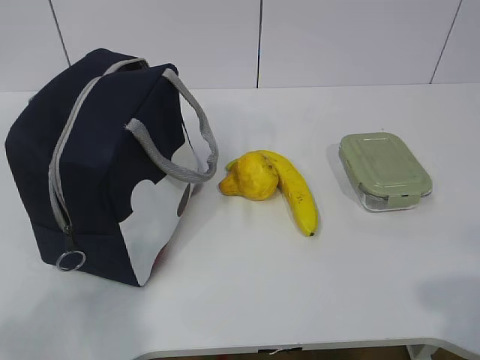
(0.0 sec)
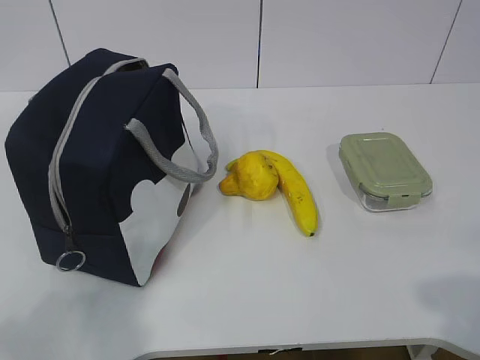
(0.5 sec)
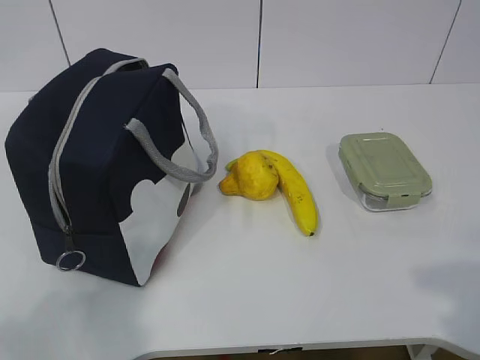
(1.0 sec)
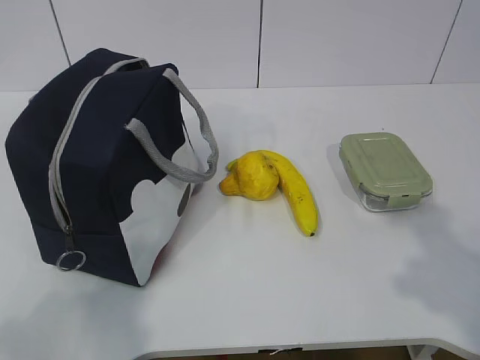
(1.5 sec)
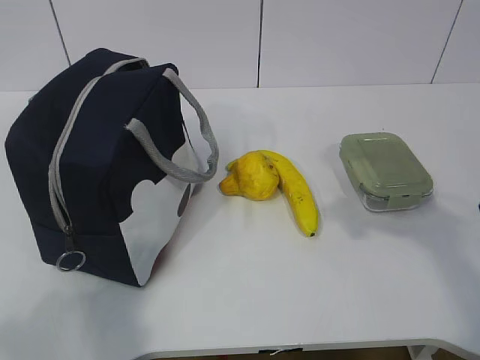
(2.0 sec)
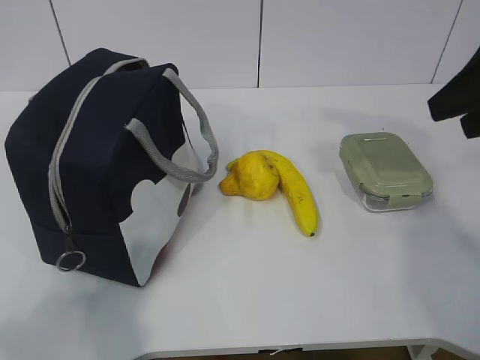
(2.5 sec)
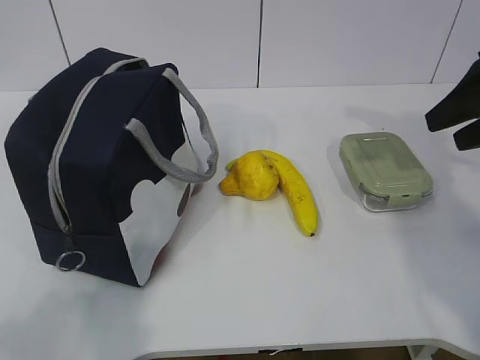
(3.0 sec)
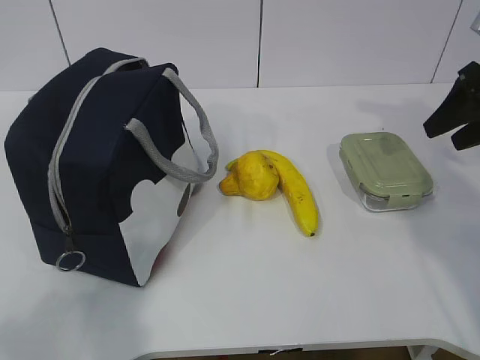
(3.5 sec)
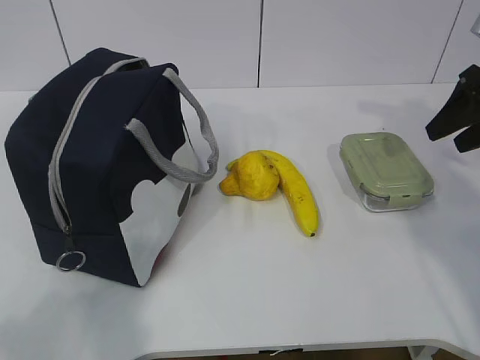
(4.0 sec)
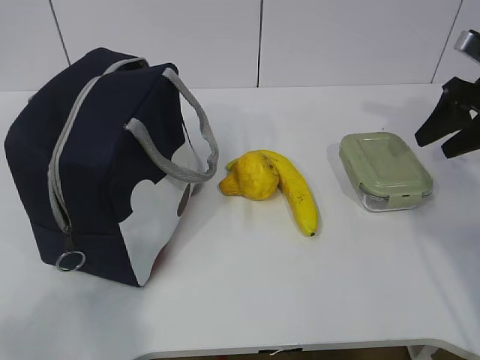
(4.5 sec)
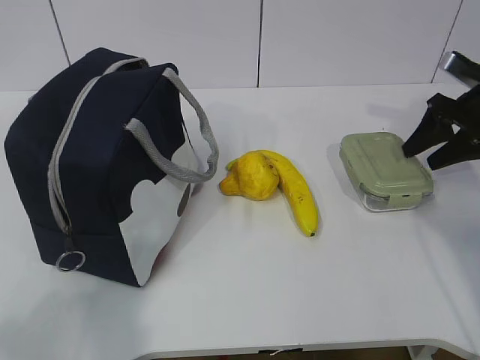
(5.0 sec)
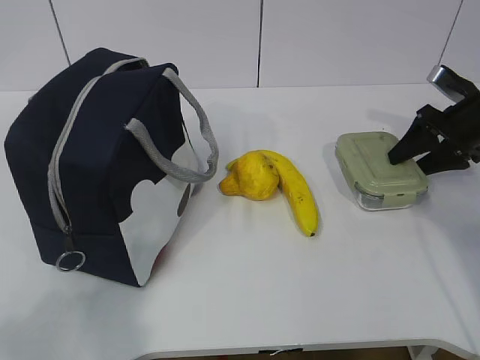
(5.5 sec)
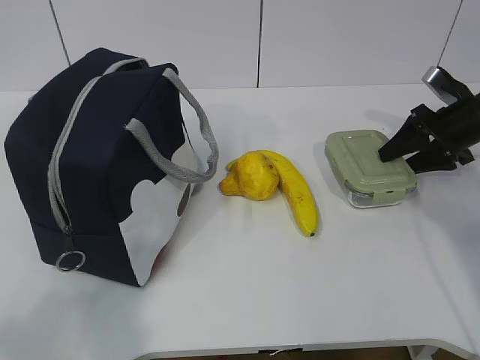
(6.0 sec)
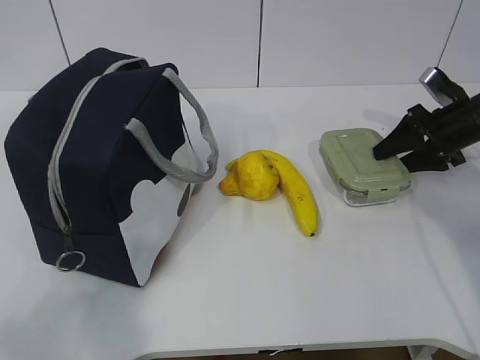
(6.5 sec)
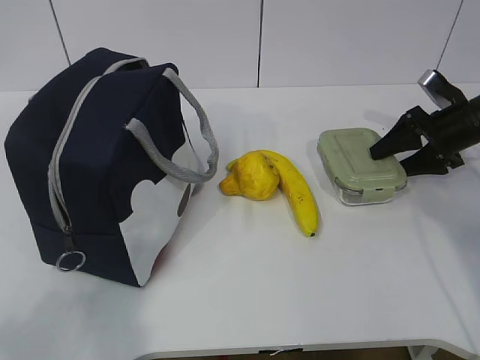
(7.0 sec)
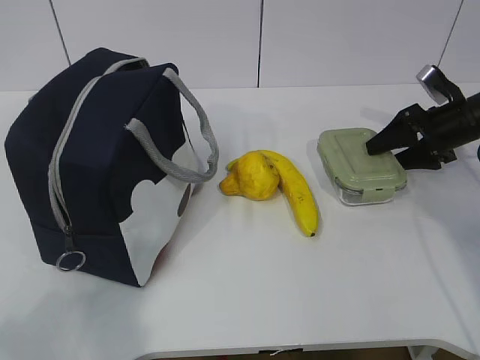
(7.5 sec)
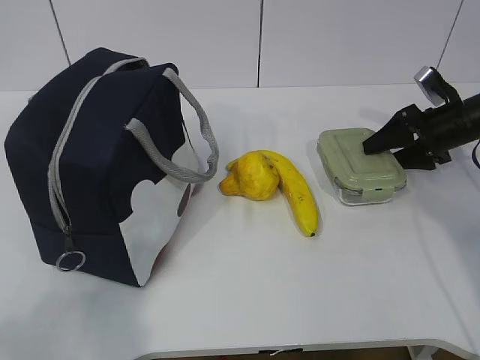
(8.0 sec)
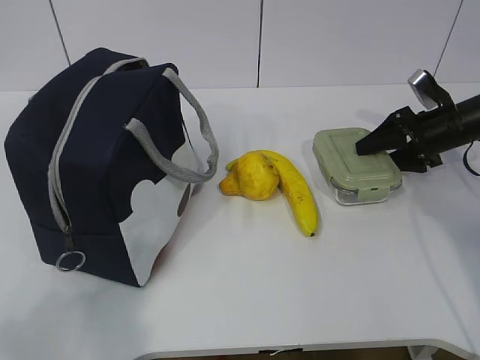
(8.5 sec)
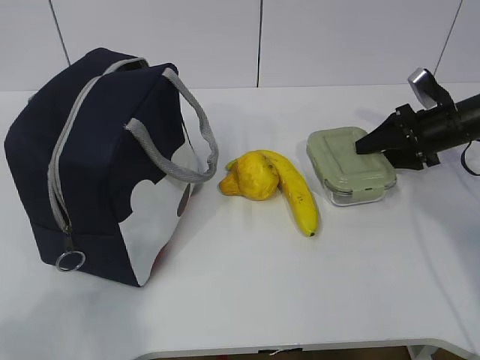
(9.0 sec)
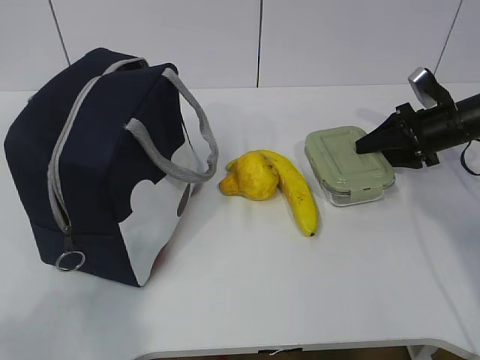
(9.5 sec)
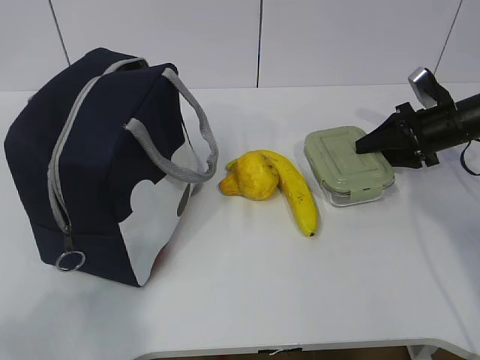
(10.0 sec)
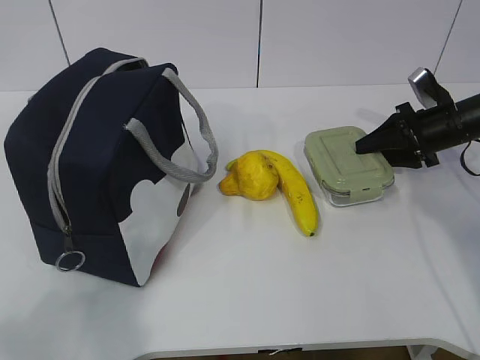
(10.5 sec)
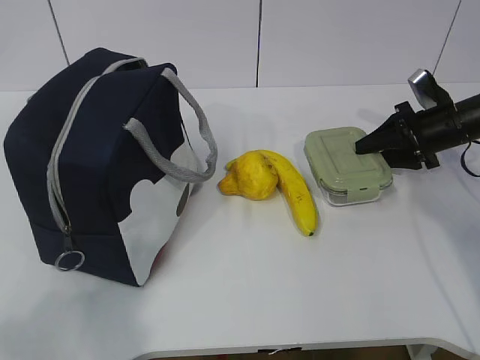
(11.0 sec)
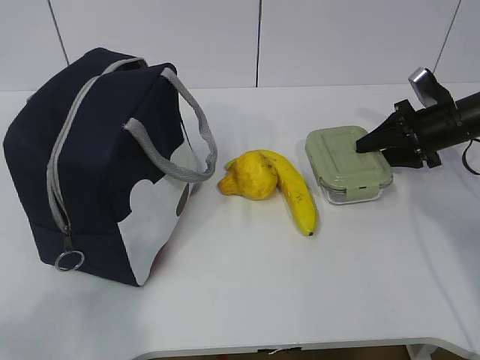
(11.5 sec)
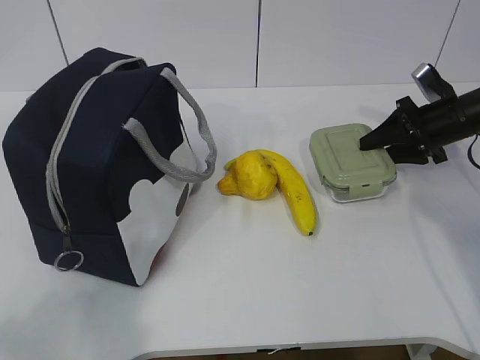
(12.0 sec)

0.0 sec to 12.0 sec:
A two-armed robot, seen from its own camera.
Step, 0.0 sec to 10.0 sec: Grab the lunch box with your right hand.
2.0 sec to 4.0 sec: The right gripper moves forward and to the right, some 20 cm.
4.0 sec to 6.0 sec: The right gripper heads downward and forward, covering about 10 cm.
6.0 sec to 8.0 sec: The grippers make only small movements.
8.0 sec to 10.0 sec: Neither gripper changes place.
10.0 sec to 12.0 sec: The grippers move only a little.

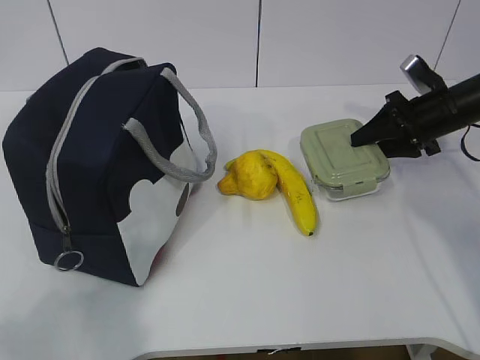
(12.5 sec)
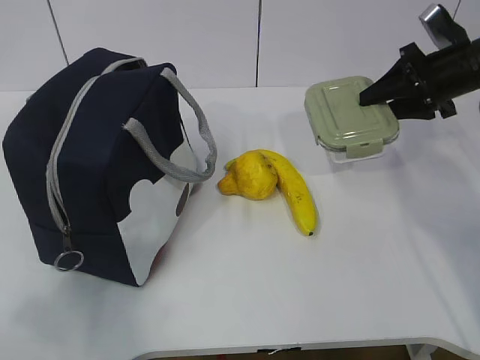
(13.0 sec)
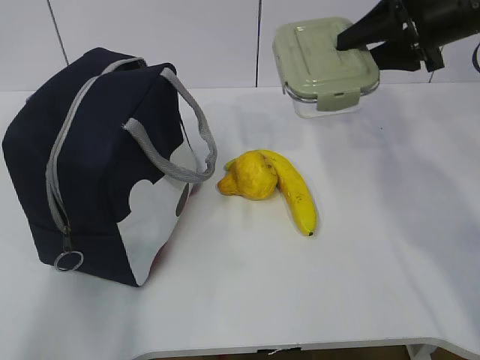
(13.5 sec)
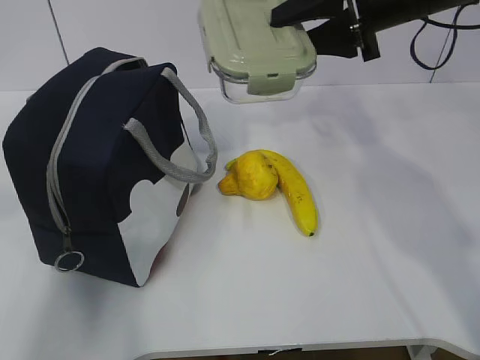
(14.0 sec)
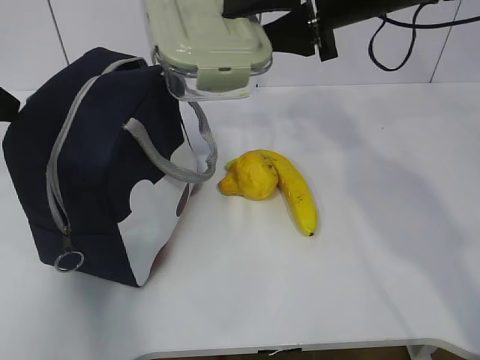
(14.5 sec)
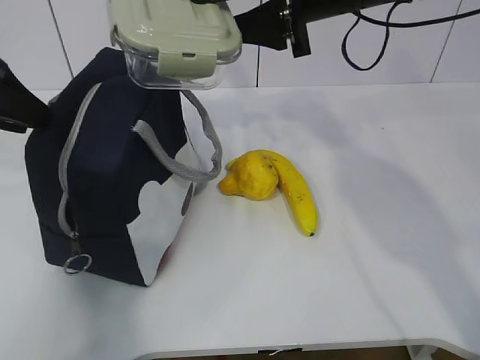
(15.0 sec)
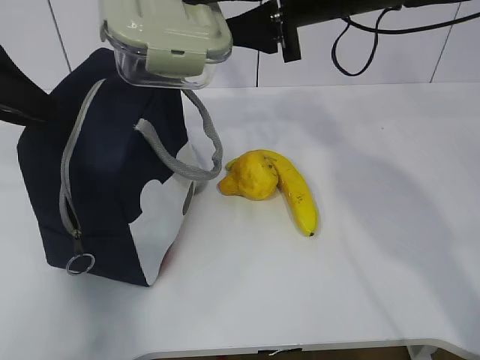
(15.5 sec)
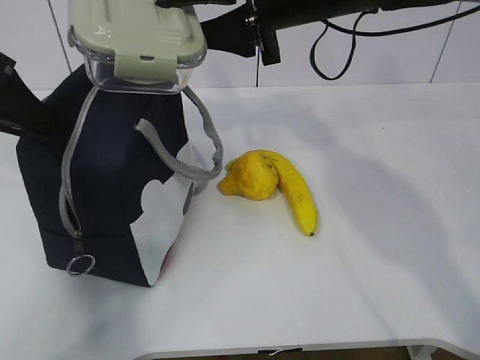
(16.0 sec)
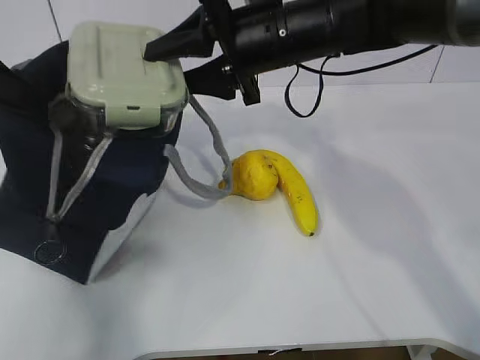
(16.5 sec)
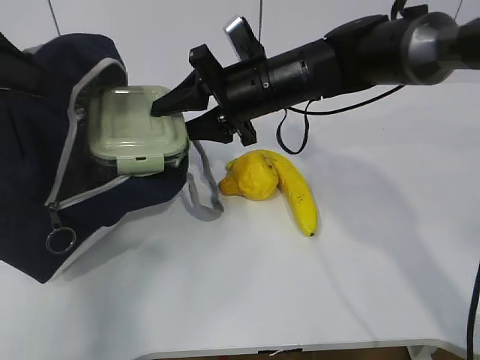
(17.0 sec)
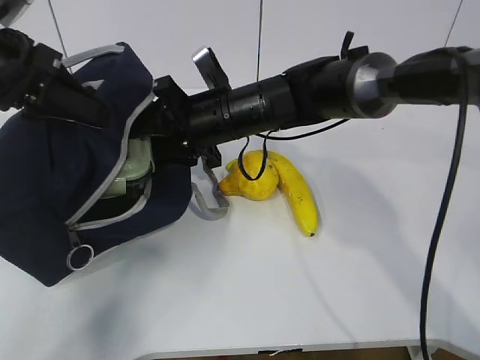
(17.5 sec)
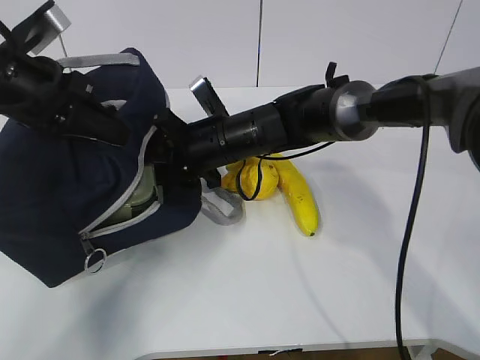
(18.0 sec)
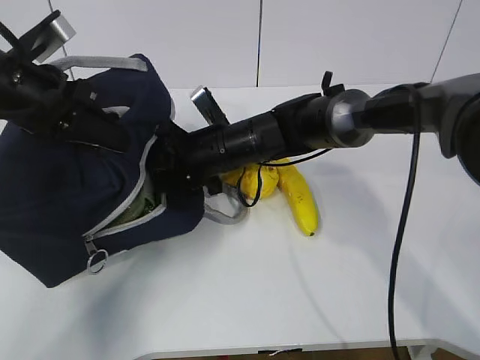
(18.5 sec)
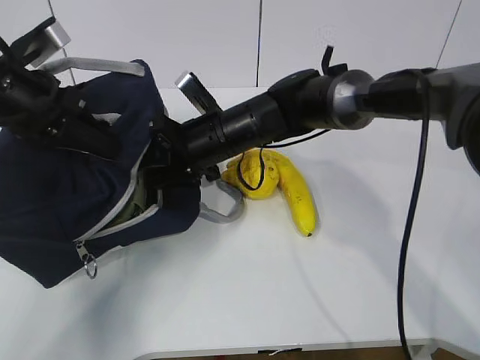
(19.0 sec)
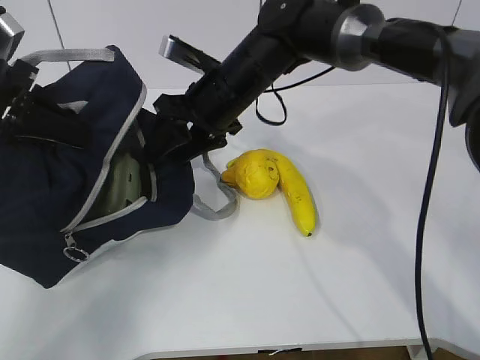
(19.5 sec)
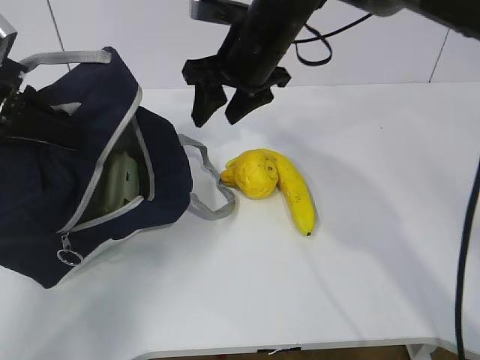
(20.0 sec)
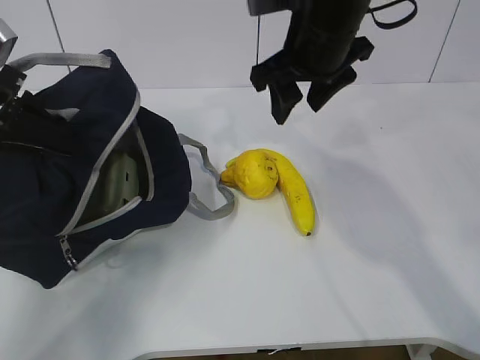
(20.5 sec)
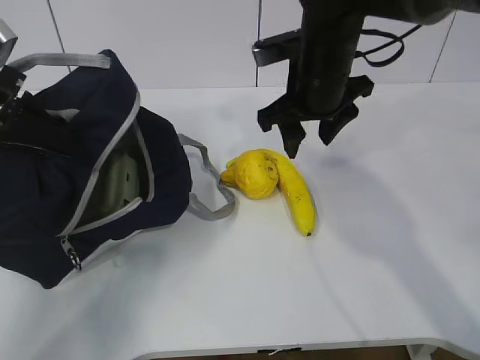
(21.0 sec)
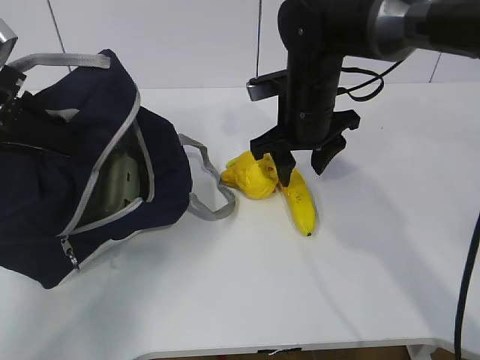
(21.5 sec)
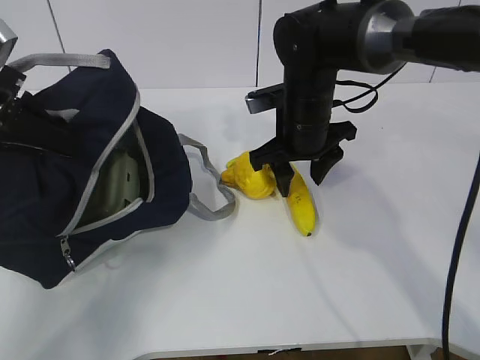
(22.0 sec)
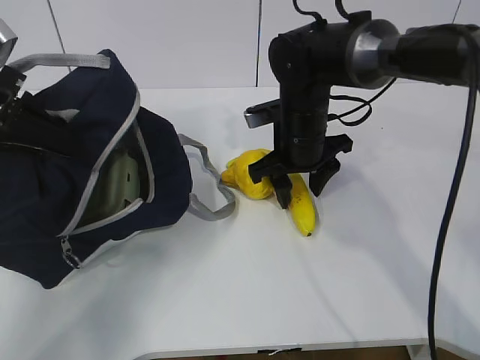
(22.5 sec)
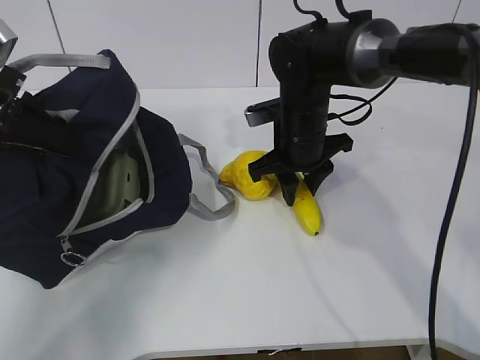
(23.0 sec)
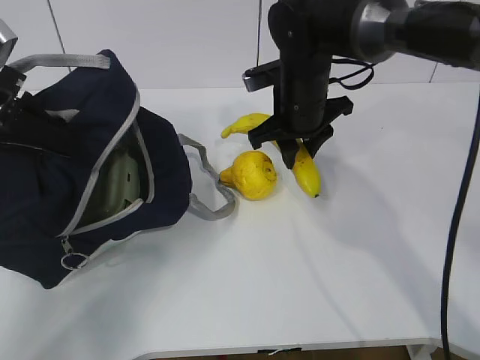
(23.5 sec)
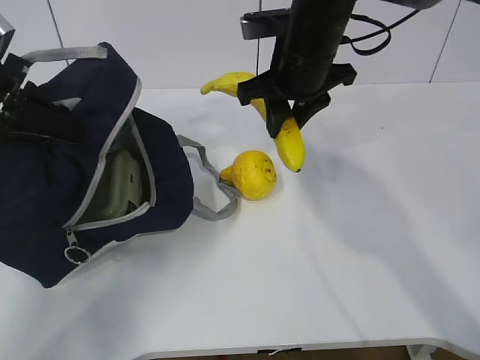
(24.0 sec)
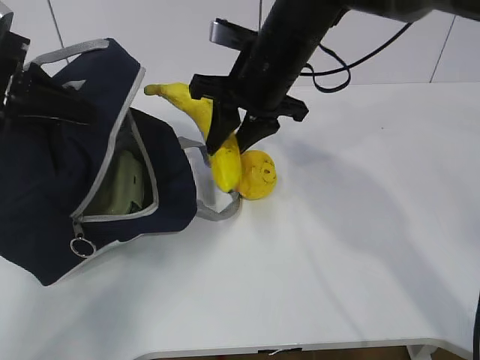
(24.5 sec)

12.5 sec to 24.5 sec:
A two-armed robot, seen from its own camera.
Step, 14.0 sec to 15.5 sec: Place it into the bag with your right hand.
Step, 16.0 sec to 19.0 sec: Grab the banana with your right hand.
Step, 19.5 sec to 21.5 sec: Place it into the bag with your right hand.
12.5 sec to 14.5 sec: The right gripper travels upward and to the left by about 25 cm. The left gripper is displaced forward by some 25 cm.
14.5 sec to 16.5 sec: The right gripper moves to the left, about 10 cm; the left gripper closes its fingers.
16.5 sec to 18.5 sec: The right gripper moves downward, about 15 cm, while the left gripper moves downward and forward, some 10 cm.
18.5 sec to 20.5 sec: The left gripper shifts roughly 5 cm to the left; the right gripper is displaced upward and to the right by roughly 20 cm.
20.5 sec to 22.5 sec: The right gripper heads downward, covering some 15 cm.
22.5 sec to 24.5 sec: The right gripper travels upward by approximately 10 cm.

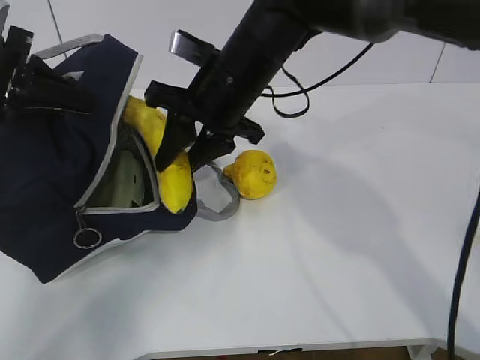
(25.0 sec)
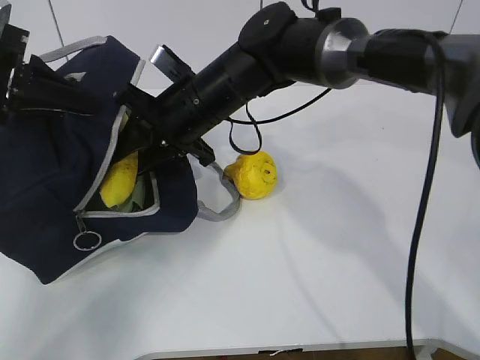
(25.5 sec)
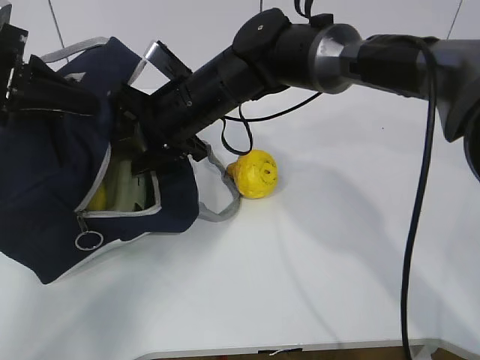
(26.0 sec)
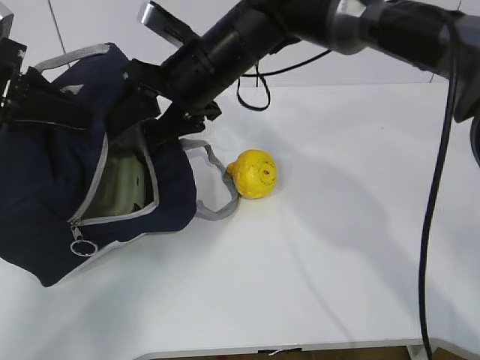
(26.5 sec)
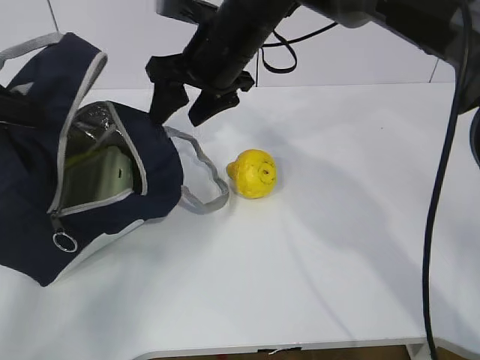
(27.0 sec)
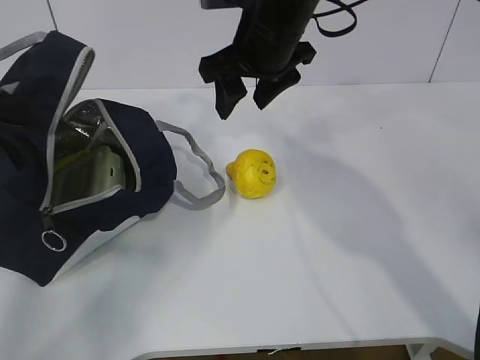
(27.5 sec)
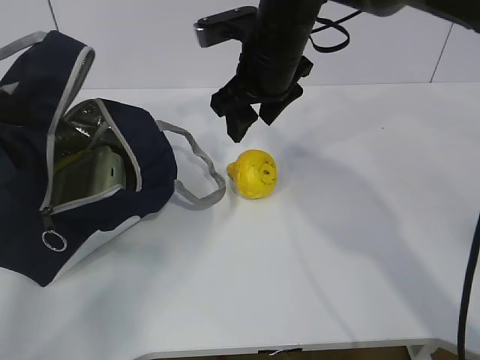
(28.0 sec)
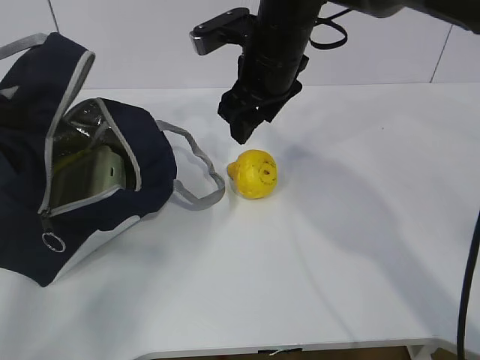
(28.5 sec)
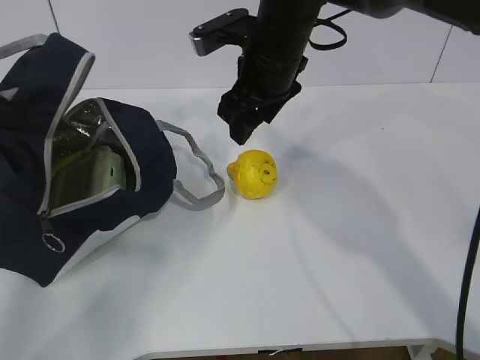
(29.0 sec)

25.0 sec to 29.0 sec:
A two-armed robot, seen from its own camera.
Step, 26.5 sec to 28.0 sec: Secure the lunch bag with your left hand.
25.0 sec to 27.0 sec: The right gripper opens. The left gripper heads to the left, covering some 5 cm.
